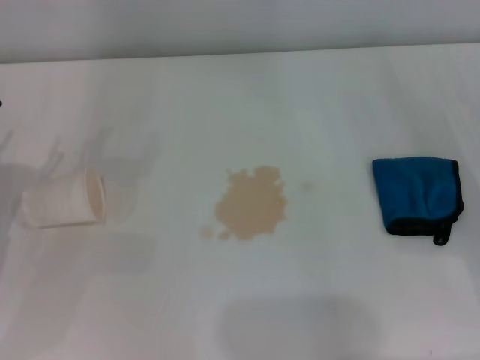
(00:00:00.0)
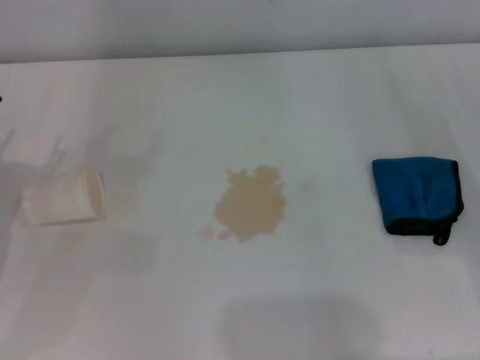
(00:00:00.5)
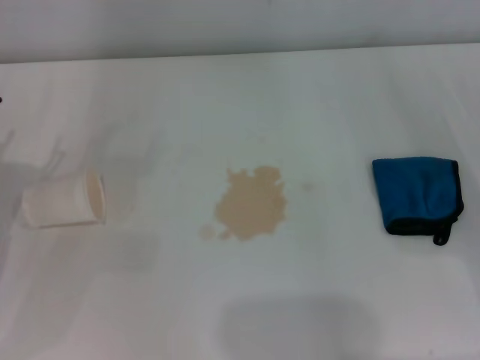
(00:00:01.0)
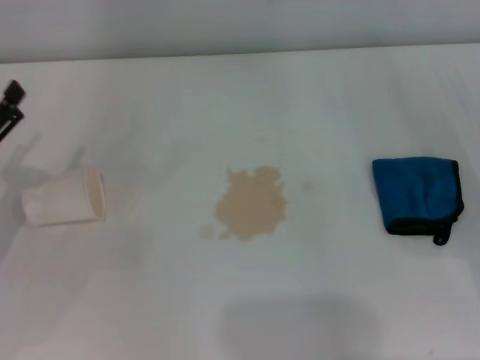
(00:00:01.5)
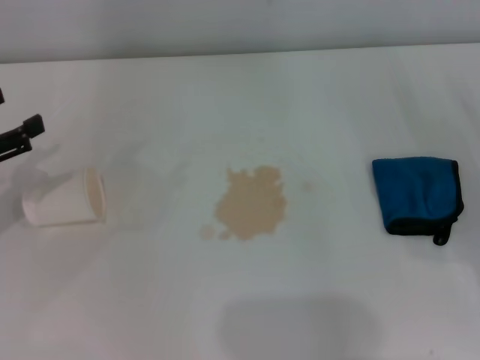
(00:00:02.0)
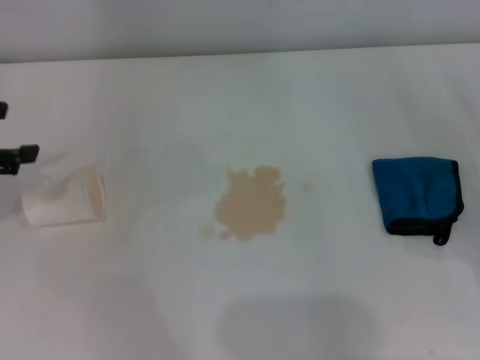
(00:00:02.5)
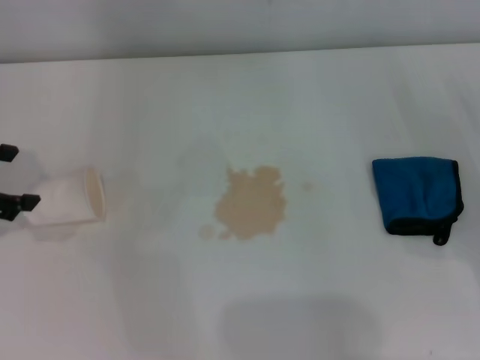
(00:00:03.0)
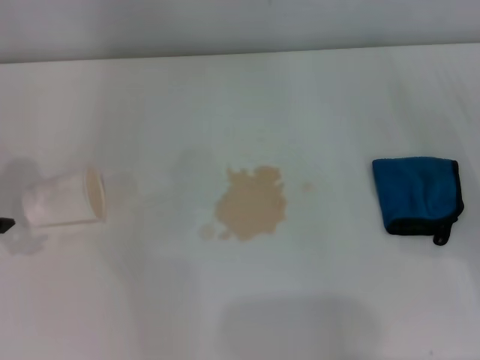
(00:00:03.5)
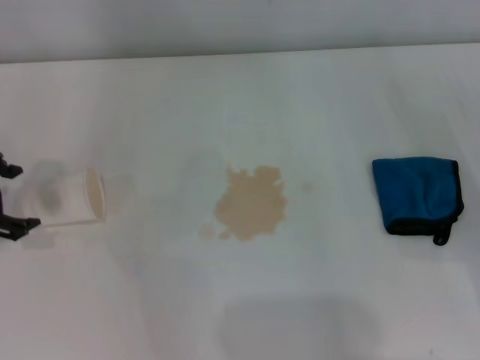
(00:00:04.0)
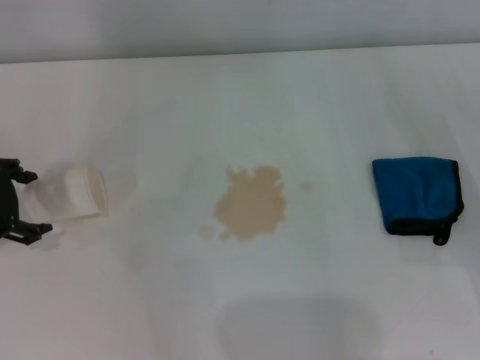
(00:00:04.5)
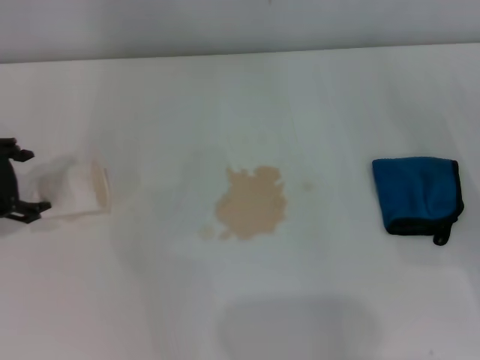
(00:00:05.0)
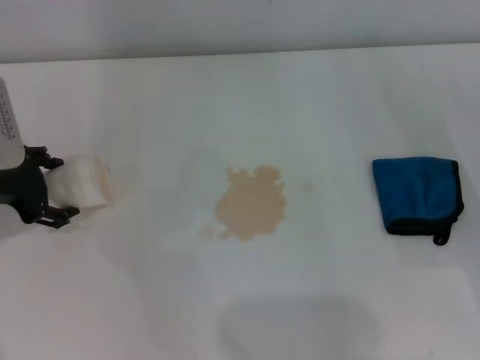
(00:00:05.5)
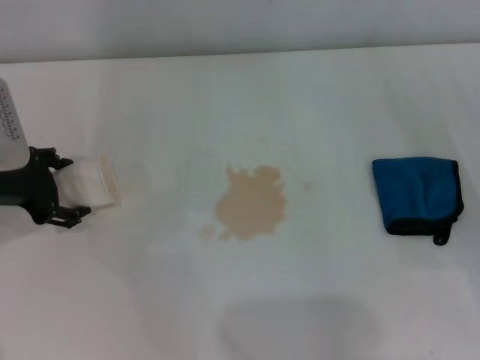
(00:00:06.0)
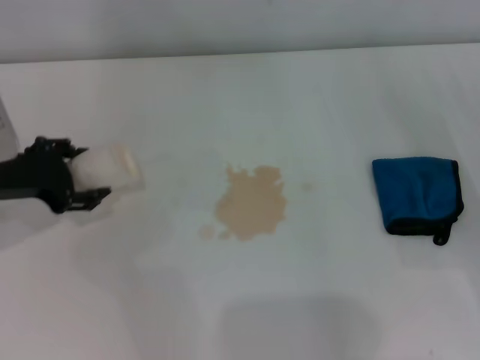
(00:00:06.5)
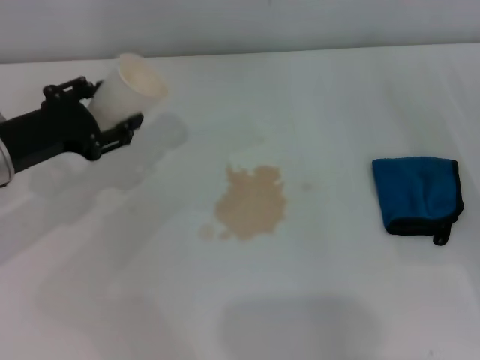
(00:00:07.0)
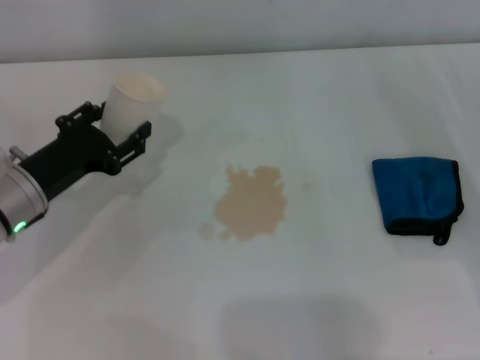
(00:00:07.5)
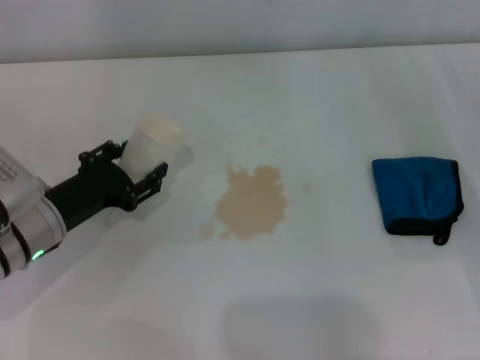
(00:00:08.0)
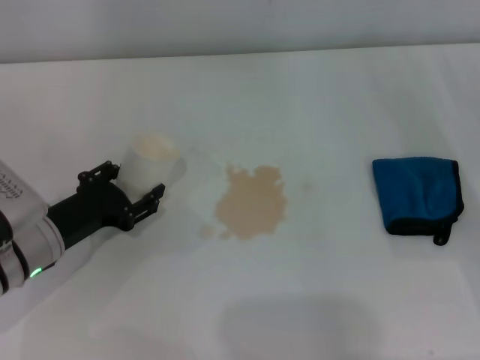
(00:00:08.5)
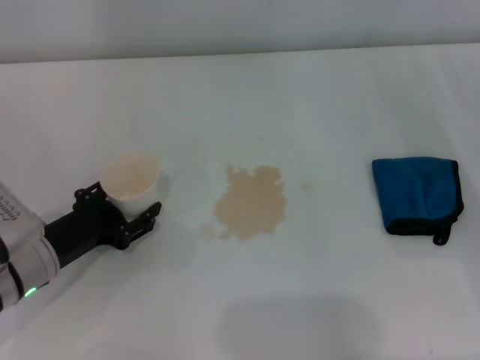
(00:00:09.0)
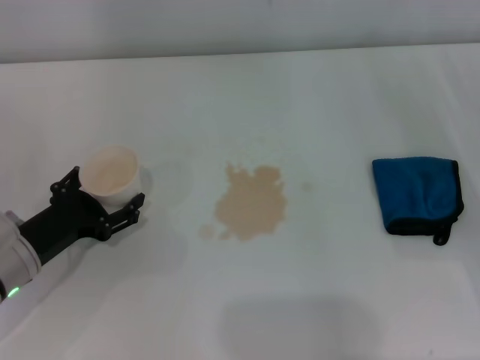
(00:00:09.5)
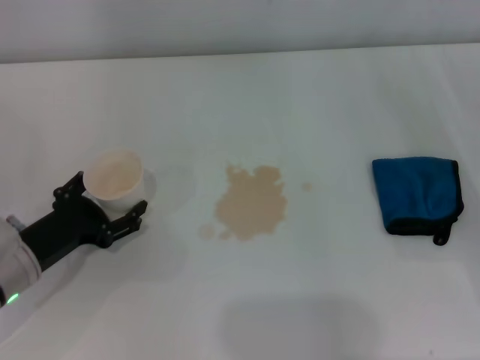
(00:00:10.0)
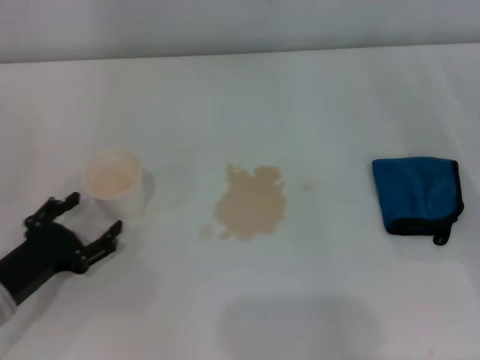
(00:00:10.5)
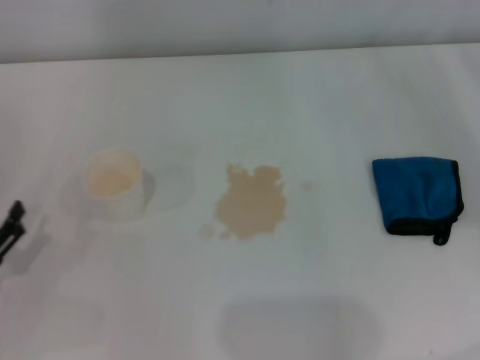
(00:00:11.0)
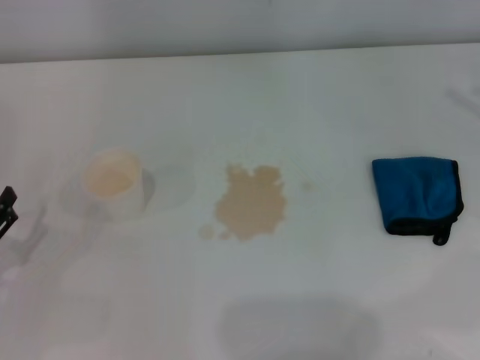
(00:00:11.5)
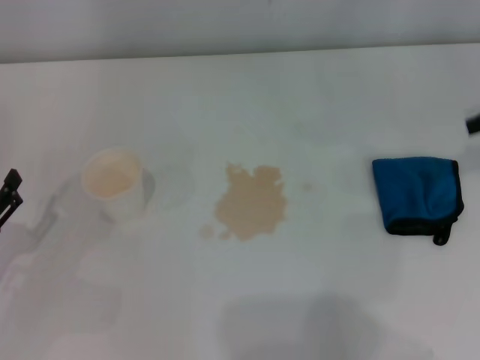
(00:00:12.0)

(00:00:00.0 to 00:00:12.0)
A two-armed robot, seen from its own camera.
Step, 00:00:00.0 - 00:00:06.0: Grasp the paper cup with the left gripper.
Step, 00:00:06.5 - 00:00:09.0: Stand the paper cup upright with the left gripper.
00:00:00.0 - 00:00:02.0: The left gripper travels upward by some 5 cm.
00:00:02.0 - 00:00:04.0: The left gripper ends up some 5 cm from where it was.
00:00:04.0 - 00:00:06.0: The left gripper moves downward, approximately 5 cm.
00:00:06.0 - 00:00:08.0: The left gripper goes about 10 cm downward, and closes.
00:00:08.0 - 00:00:10.0: The left gripper opens its fingers.
00:00:10.0 - 00:00:12.0: The left gripper travels to the left and backward by some 10 cm; the right gripper travels upward and forward by some 20 cm.

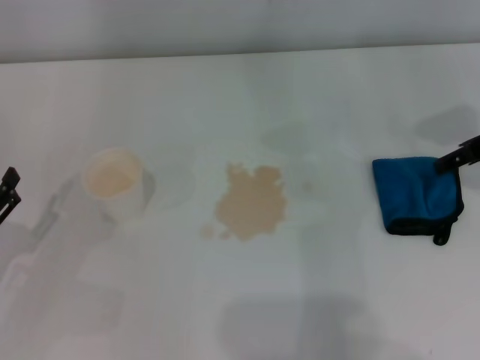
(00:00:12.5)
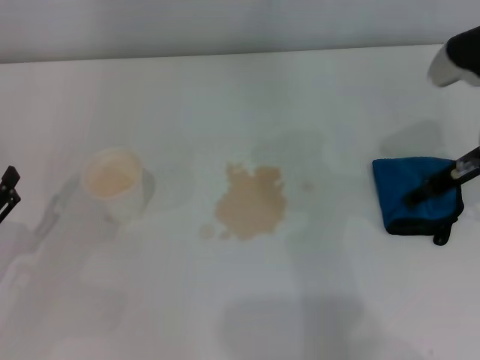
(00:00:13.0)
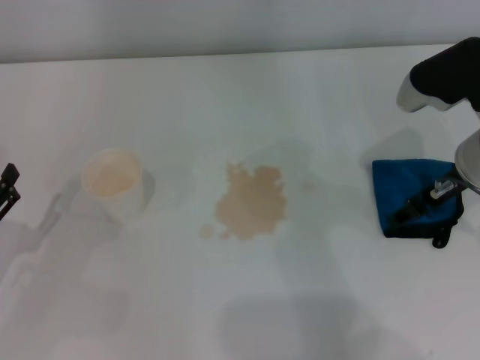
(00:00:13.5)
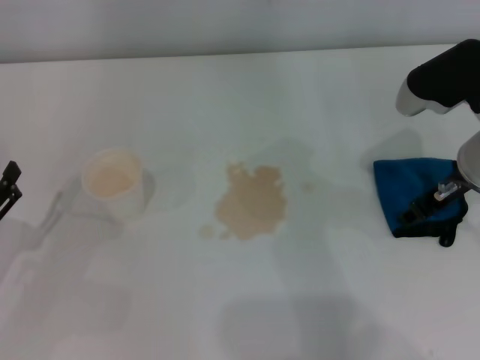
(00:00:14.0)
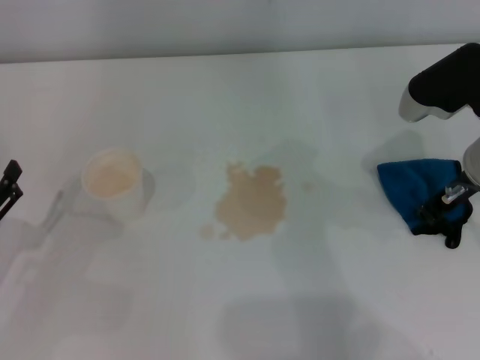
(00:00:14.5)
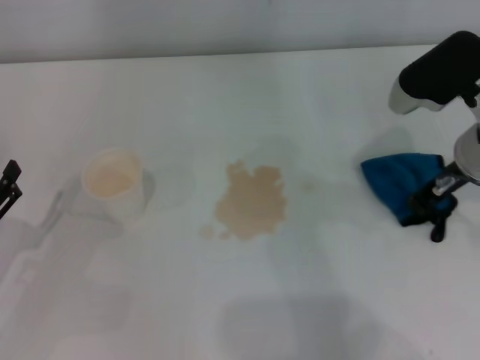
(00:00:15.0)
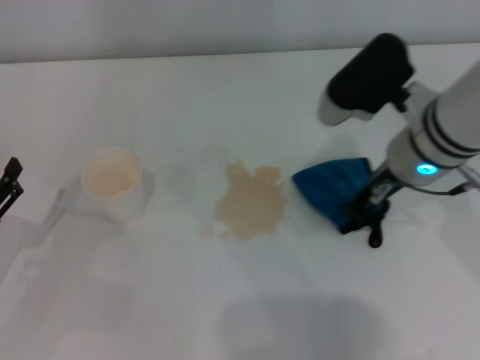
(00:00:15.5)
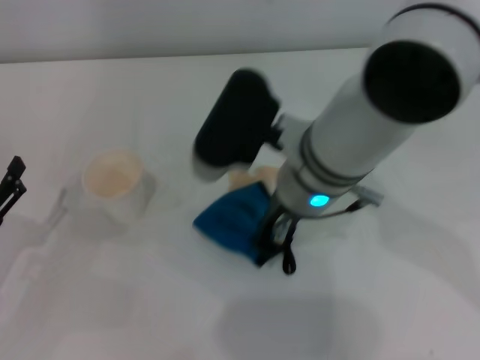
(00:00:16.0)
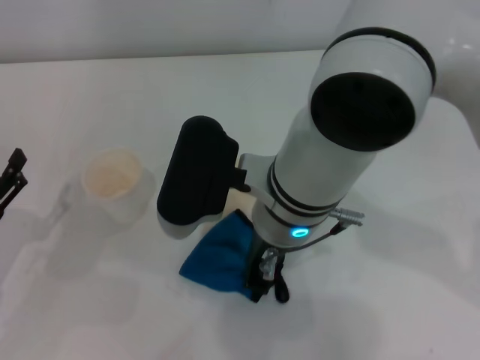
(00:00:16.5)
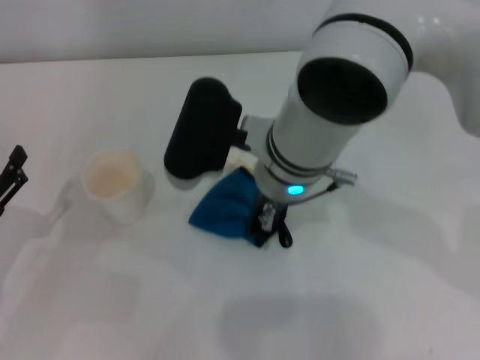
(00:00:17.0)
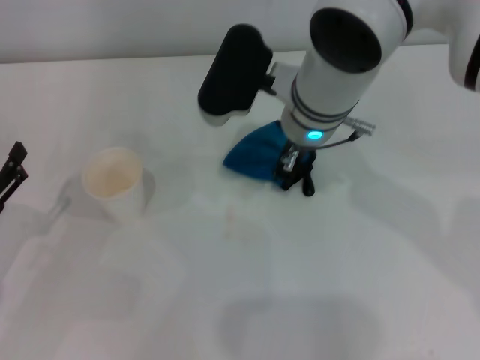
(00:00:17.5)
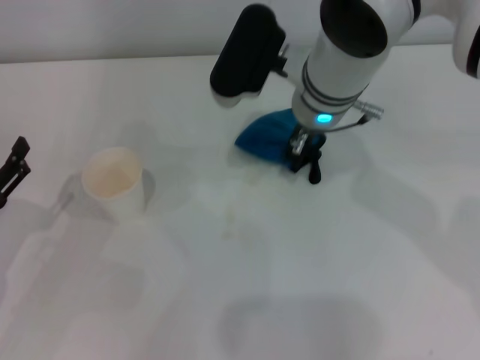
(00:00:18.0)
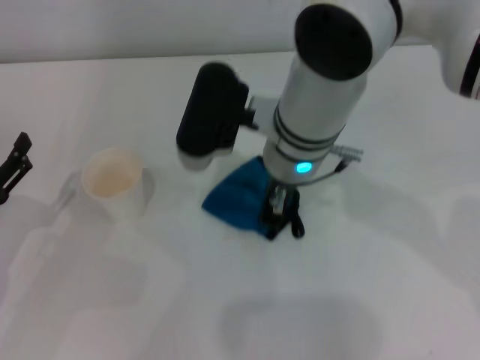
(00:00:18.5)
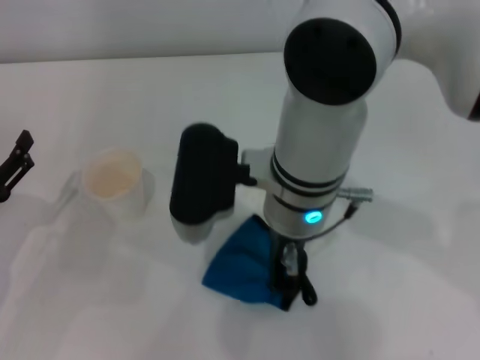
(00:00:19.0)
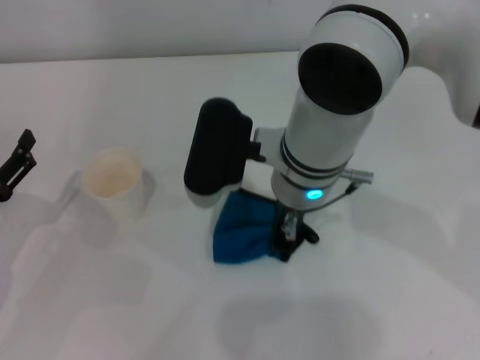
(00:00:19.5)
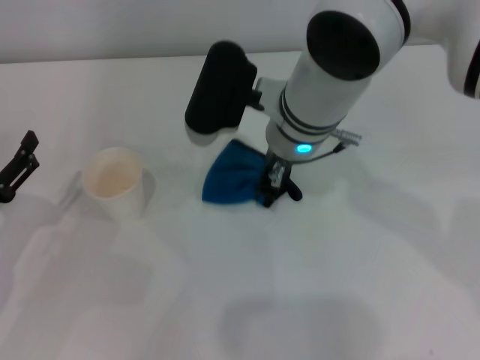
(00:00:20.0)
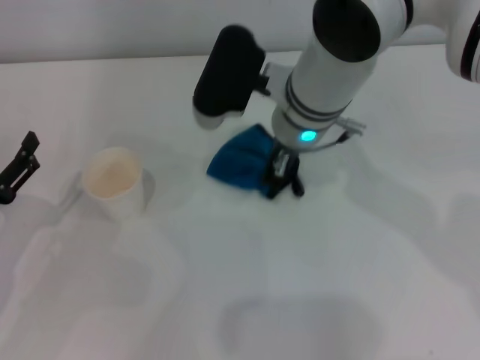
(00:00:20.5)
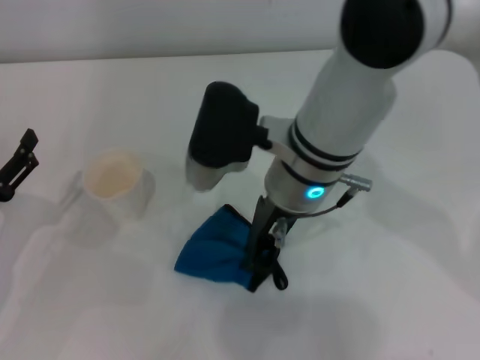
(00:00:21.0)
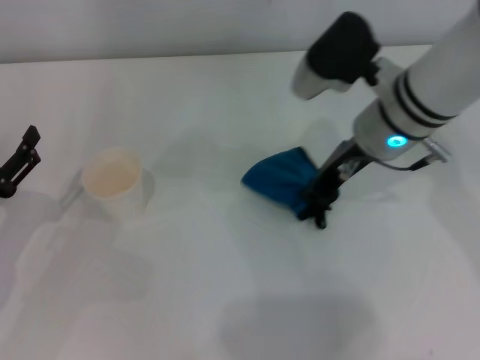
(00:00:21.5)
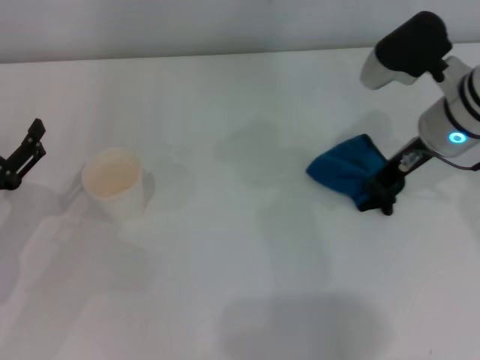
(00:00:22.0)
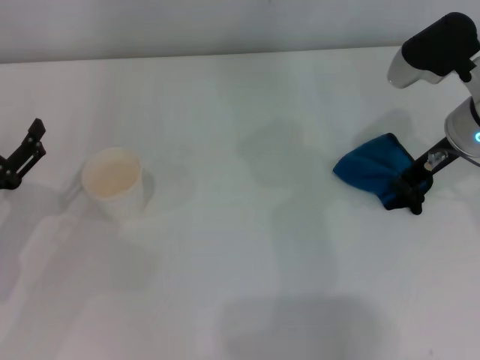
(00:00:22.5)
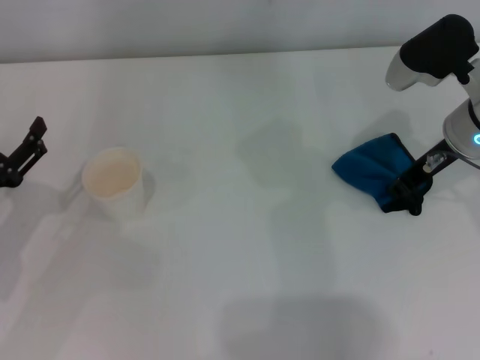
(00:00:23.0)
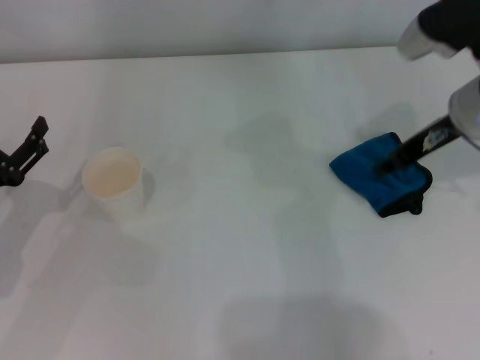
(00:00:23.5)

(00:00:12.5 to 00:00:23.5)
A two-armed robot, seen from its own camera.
Step, 00:00:12.5 - 00:00:14.5: Grasp the rag with the right gripper.
Step, 00:00:15.0 - 00:00:22.0: Wipe the stains off the table with the right gripper.
Step, 00:00:22.5 - 00:00:23.0: Place the rag on the table with the right gripper.
00:00:12.5 - 00:00:14.5: The right gripper travels to the left by about 5 cm, and closes its fingers.
00:00:14.5 - 00:00:16.0: The right gripper moves to the left, some 20 cm.
00:00:16.0 - 00:00:18.0: The right gripper goes approximately 10 cm forward.
00:00:18.0 - 00:00:20.0: The right gripper moves some 10 cm backward and comes back.
00:00:20.0 - 00:00:21.5: The right gripper shifts roughly 10 cm to the right.
00:00:21.5 - 00:00:23.5: The right gripper is displaced to the right by approximately 10 cm, and opens its fingers.

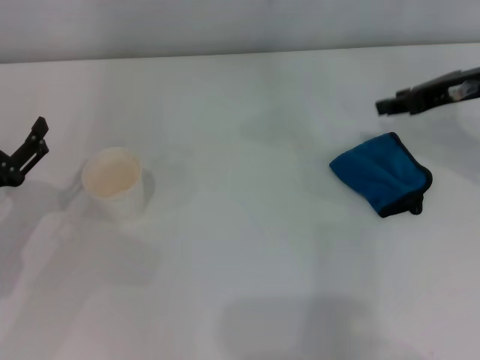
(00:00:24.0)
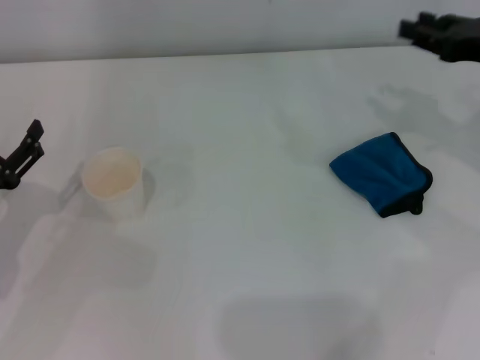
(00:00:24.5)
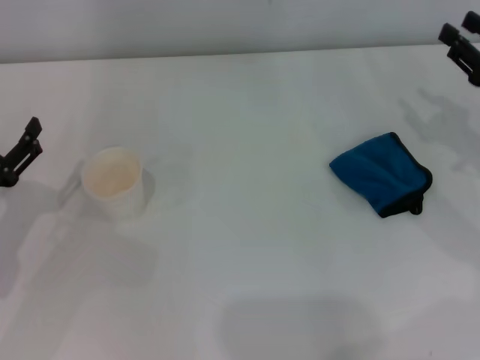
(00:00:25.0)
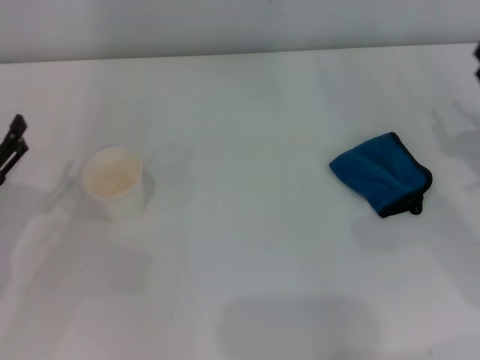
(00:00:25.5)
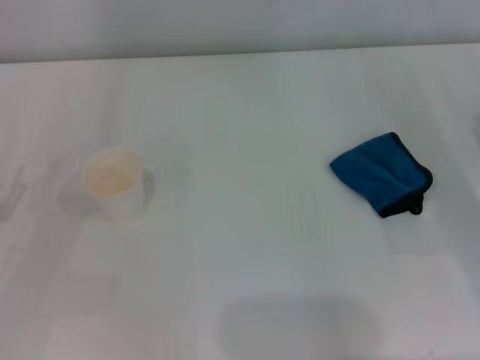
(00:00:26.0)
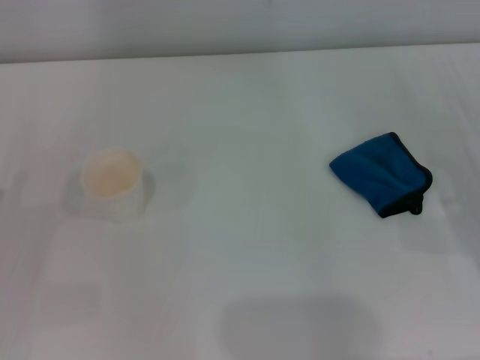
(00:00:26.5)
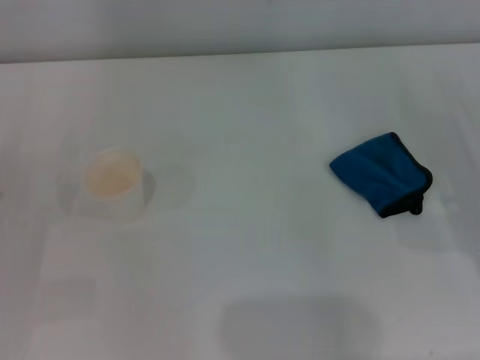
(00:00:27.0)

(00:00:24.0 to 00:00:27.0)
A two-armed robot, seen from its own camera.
00:00:24.0 - 00:00:25.5: The right gripper travels downward and backward by approximately 15 cm.
00:00:25.5 - 00:00:27.0: The right gripper opens.
